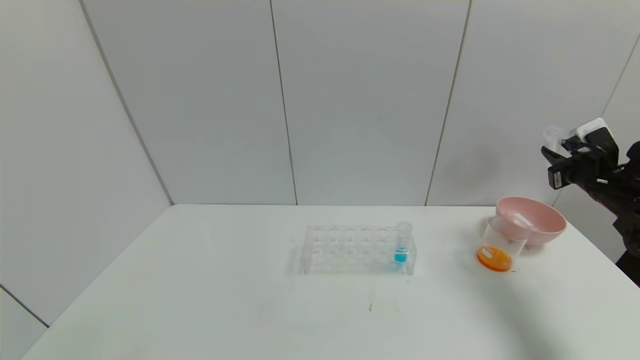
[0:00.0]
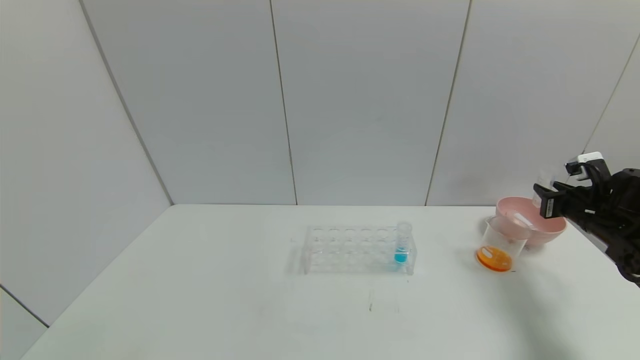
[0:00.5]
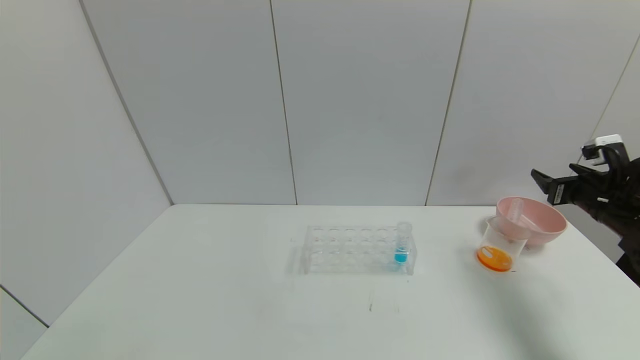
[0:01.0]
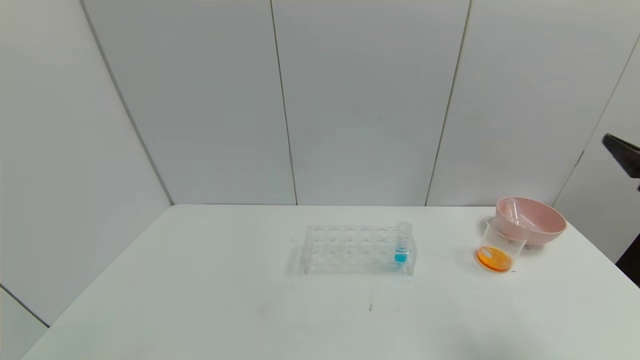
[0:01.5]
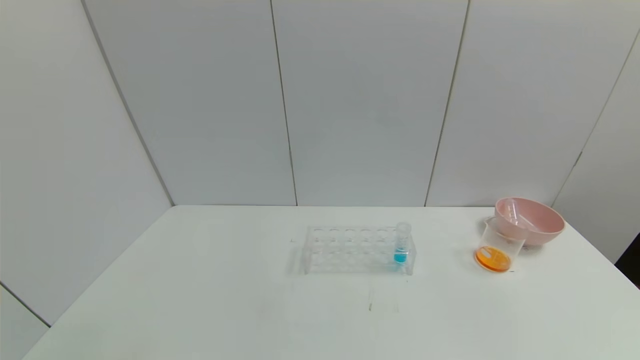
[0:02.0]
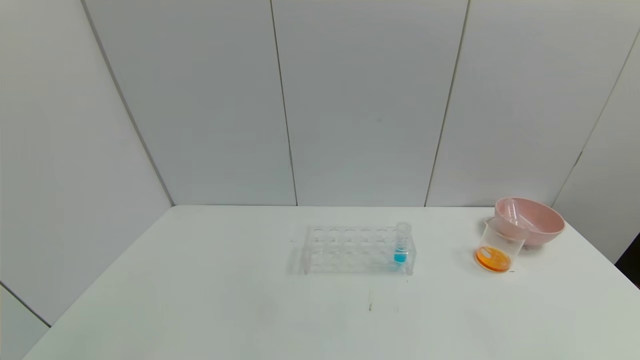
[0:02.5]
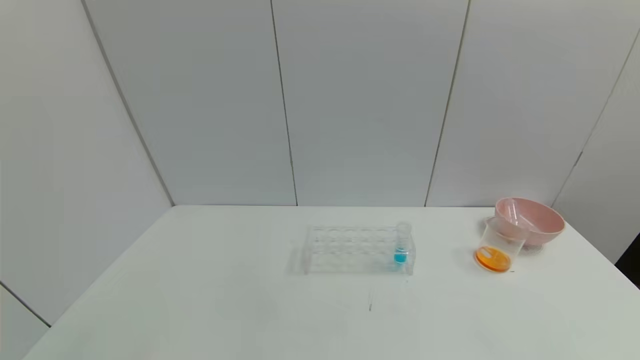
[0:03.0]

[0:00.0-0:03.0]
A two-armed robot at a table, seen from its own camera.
Task of the whole recording: pick up the test tube with yellow pigment and the test tube with red pigment by grippers and pour them into the beaker.
0:00.0 to 0:01.5: The right gripper travels backward and upward by roughly 20 cm, and opens its fingers.
0:01.5 to 0:03.0: The right gripper is displaced backward and downward by roughly 30 cm.
